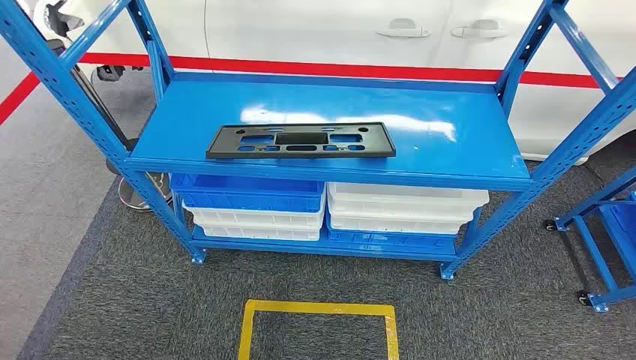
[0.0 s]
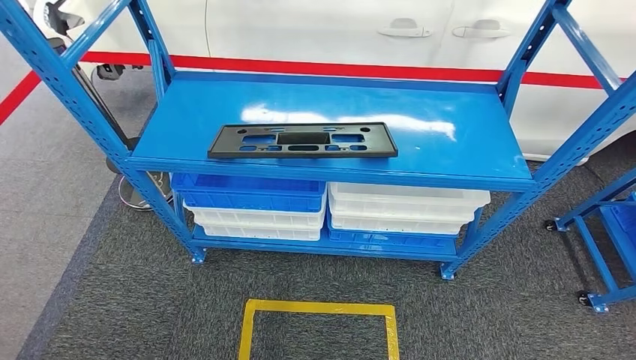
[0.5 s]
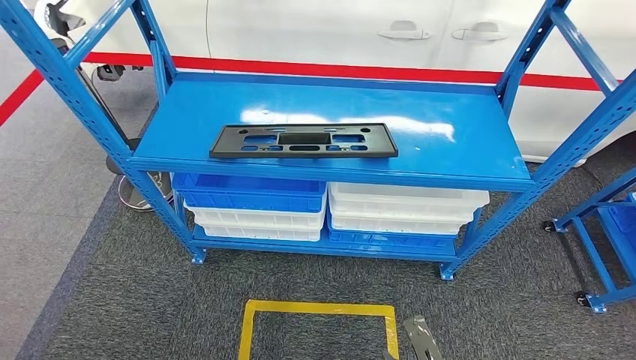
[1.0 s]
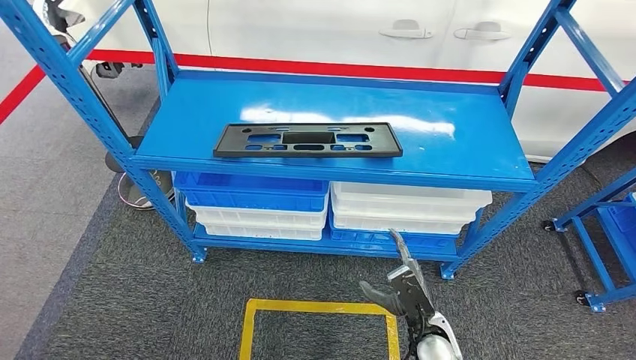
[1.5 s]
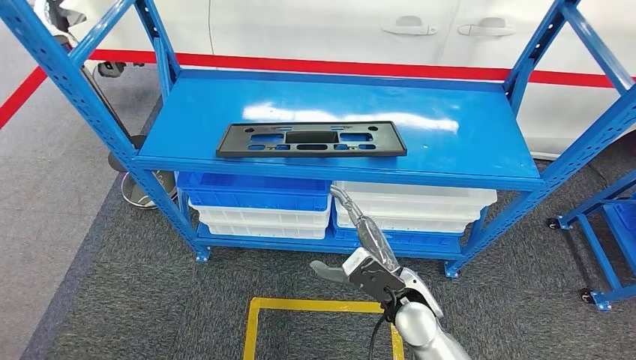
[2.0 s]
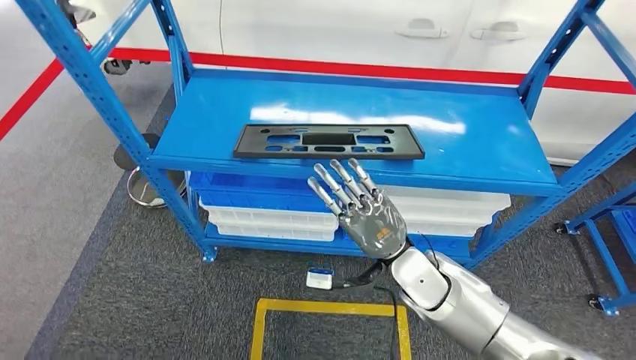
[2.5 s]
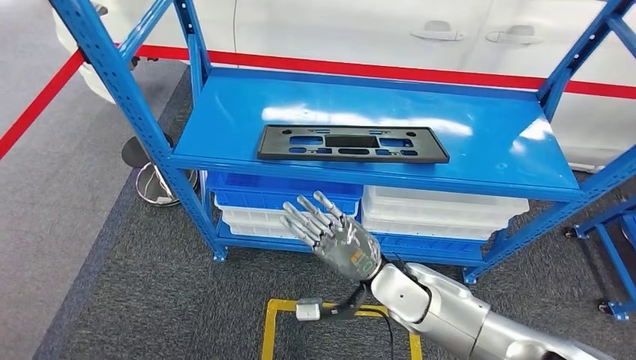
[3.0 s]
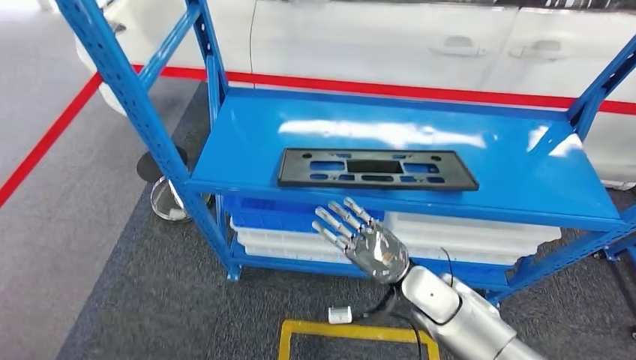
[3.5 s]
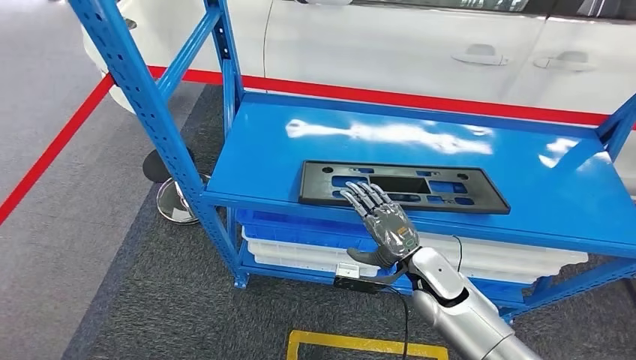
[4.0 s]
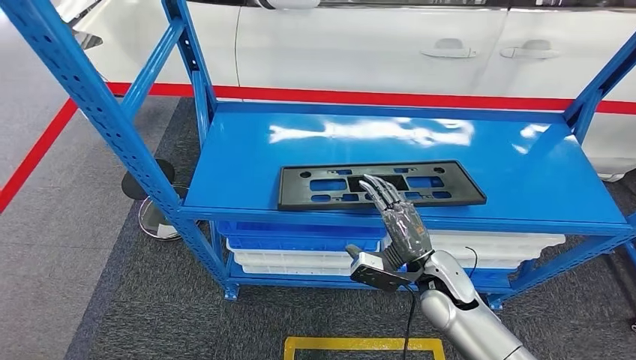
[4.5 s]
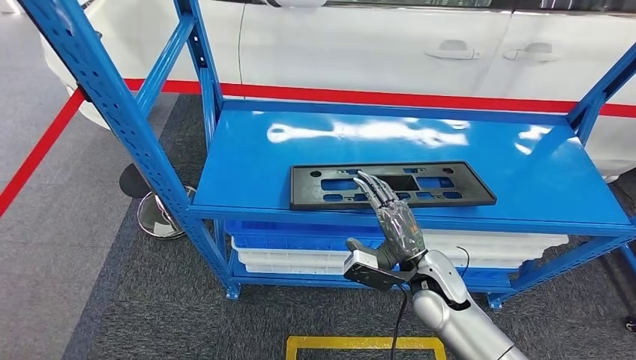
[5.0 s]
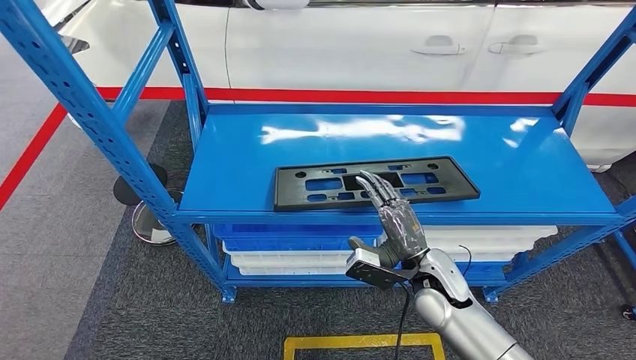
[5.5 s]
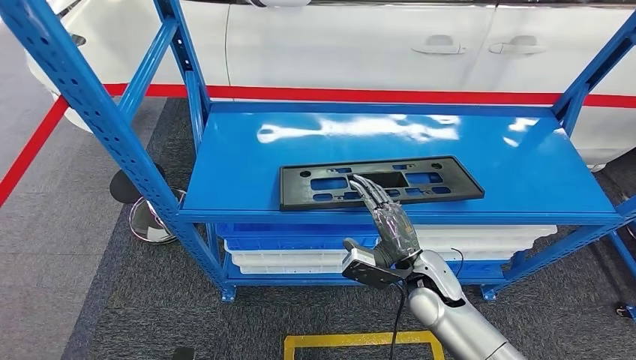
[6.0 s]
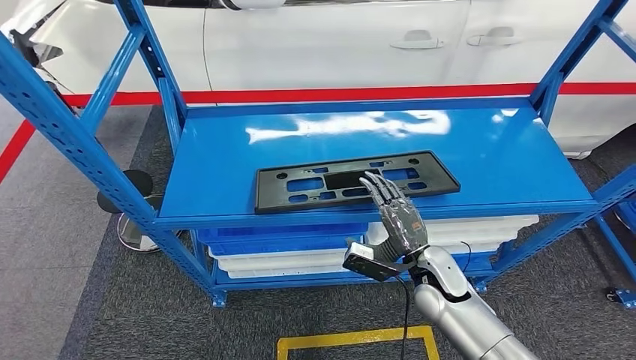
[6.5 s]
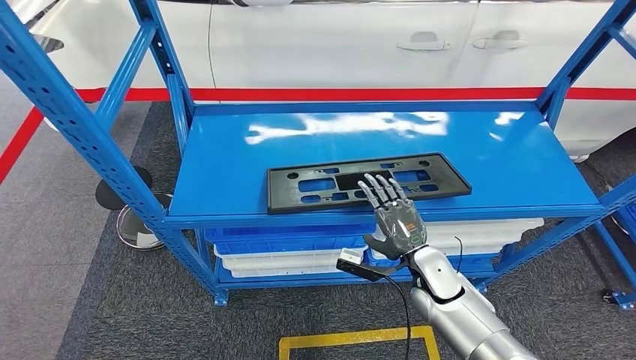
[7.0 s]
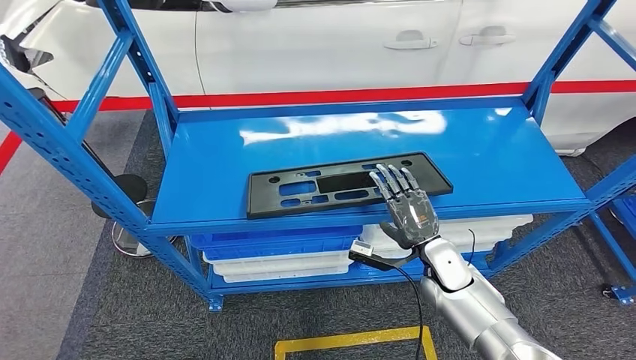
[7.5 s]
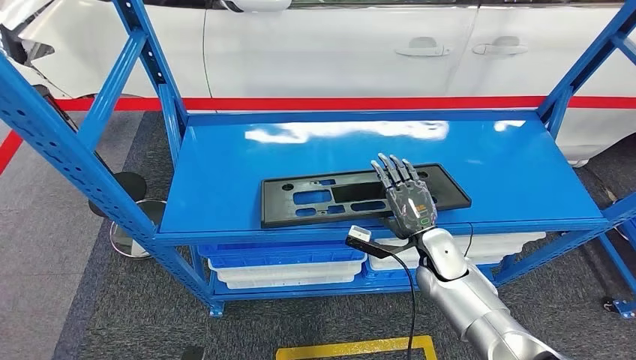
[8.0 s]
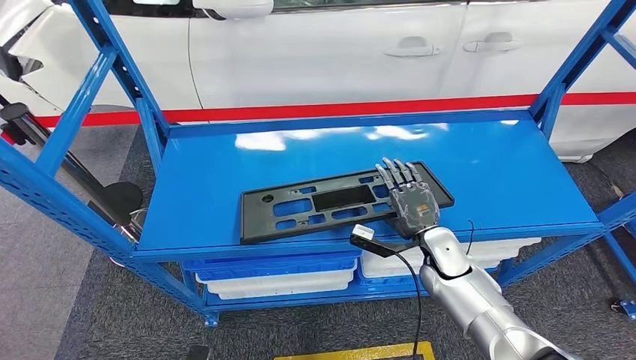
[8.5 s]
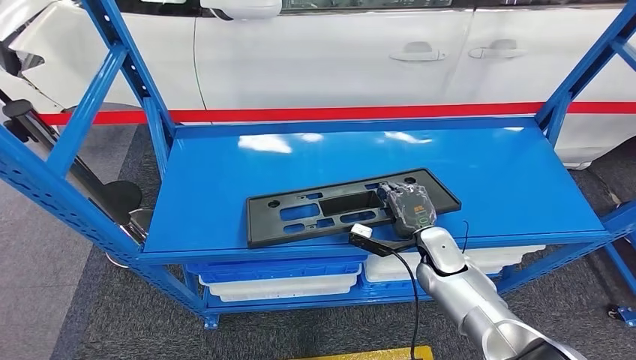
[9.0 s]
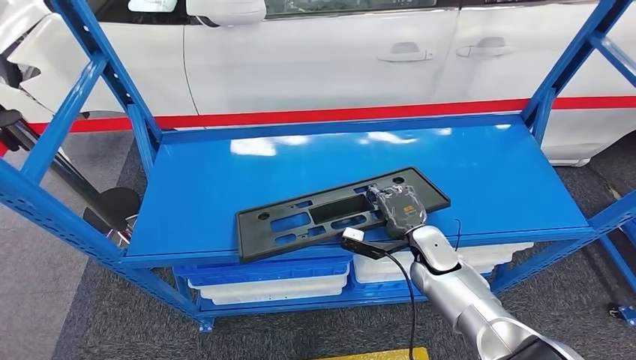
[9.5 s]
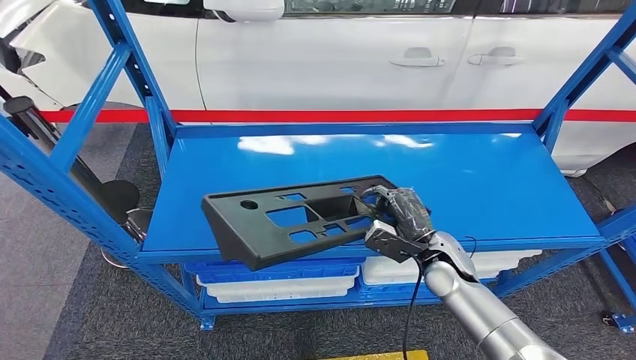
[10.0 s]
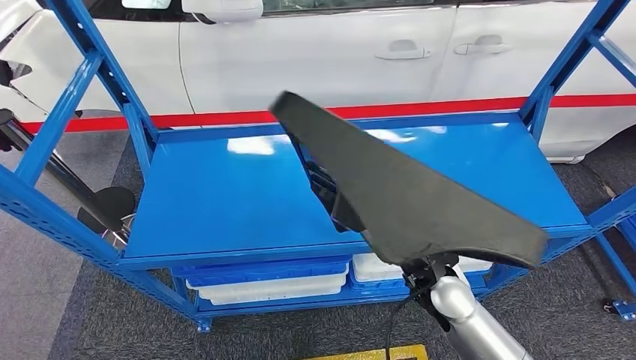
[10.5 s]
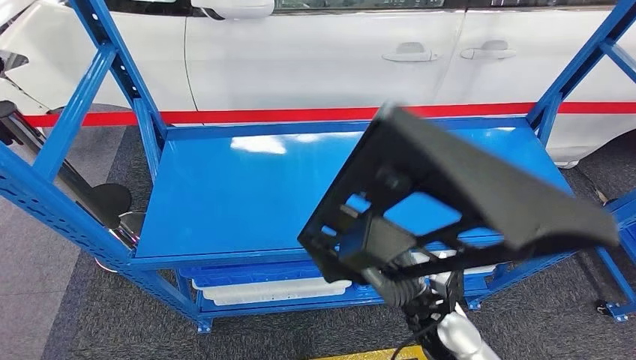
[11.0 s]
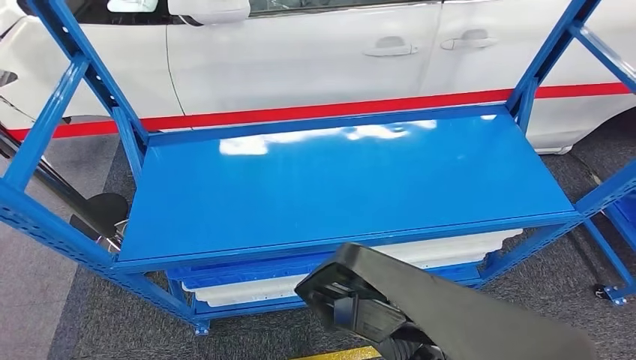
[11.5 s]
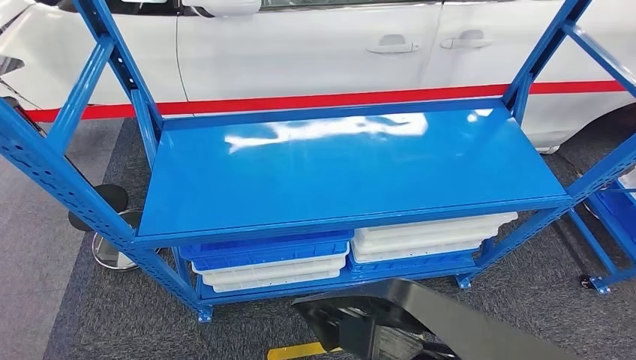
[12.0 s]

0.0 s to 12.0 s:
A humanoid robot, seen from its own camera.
Step, 0.0 to 10.0 s: Pick up the large material from the shelf.

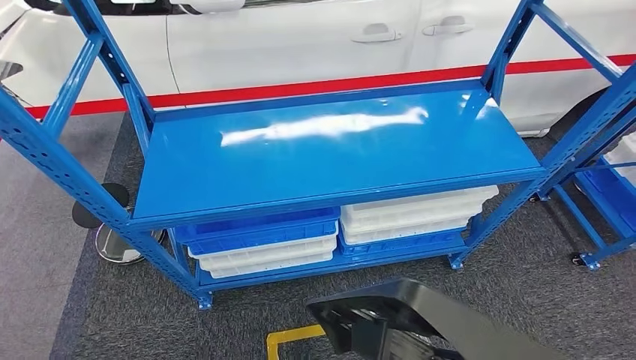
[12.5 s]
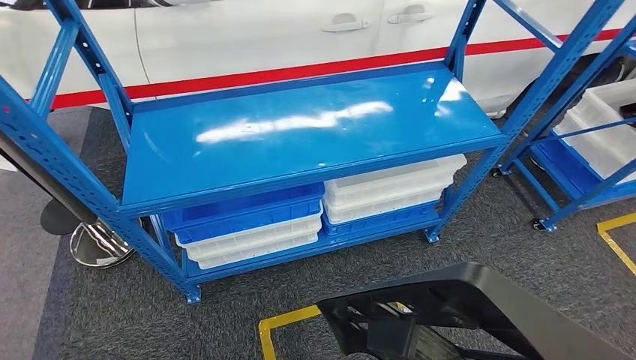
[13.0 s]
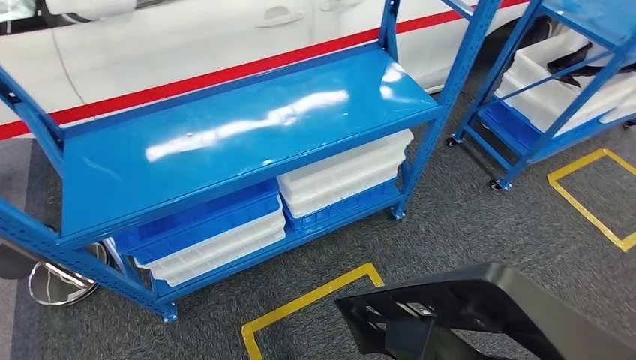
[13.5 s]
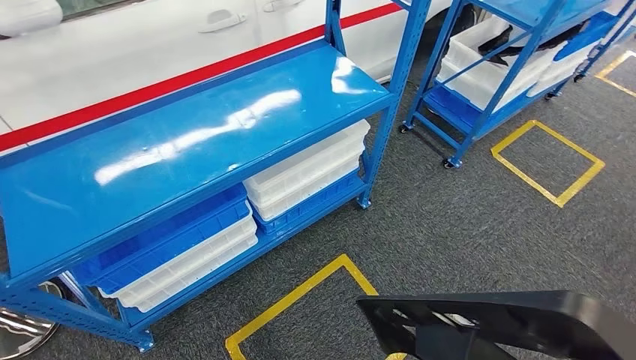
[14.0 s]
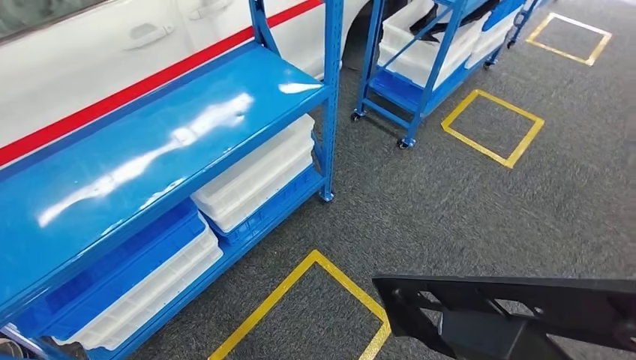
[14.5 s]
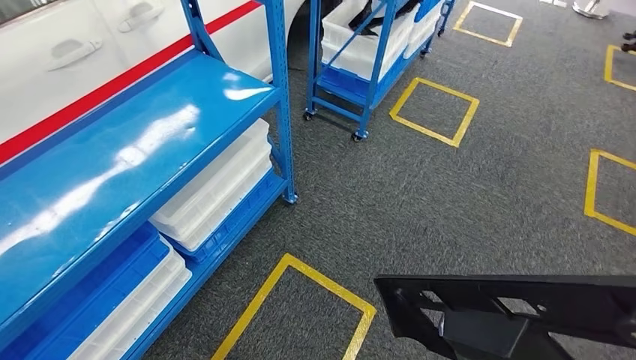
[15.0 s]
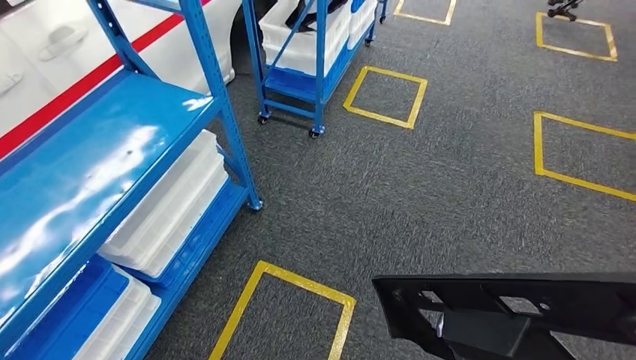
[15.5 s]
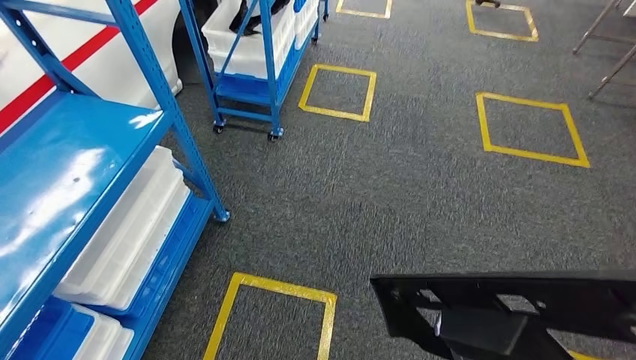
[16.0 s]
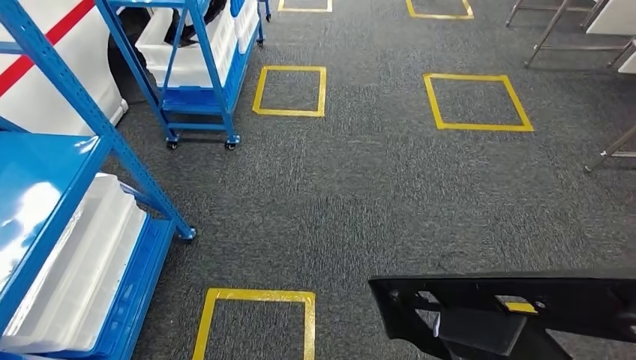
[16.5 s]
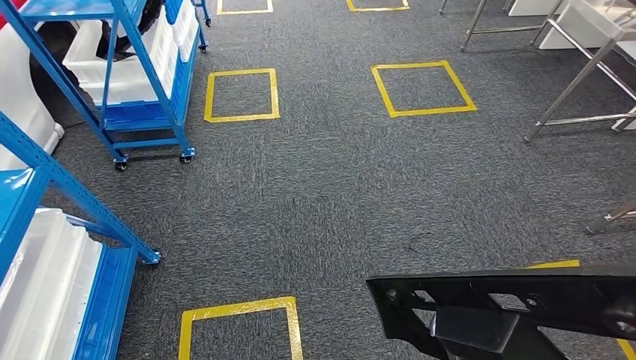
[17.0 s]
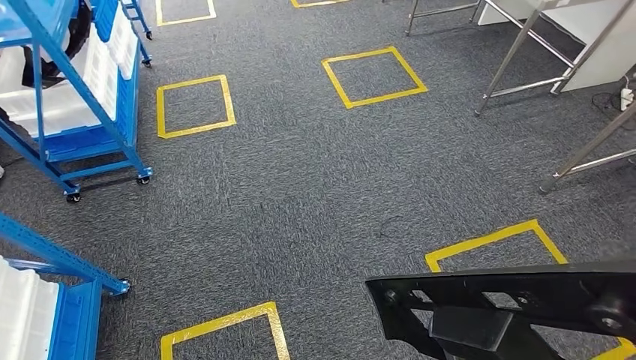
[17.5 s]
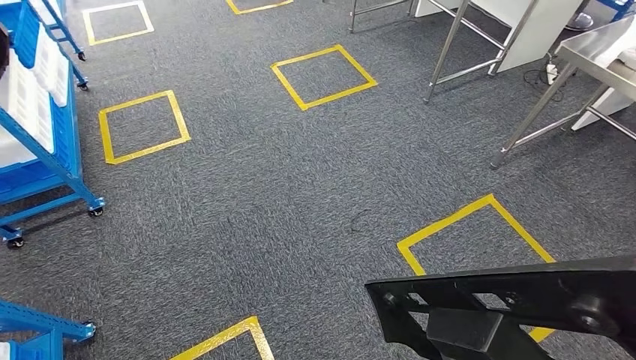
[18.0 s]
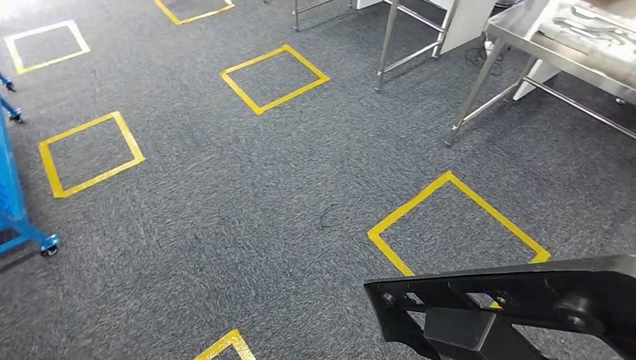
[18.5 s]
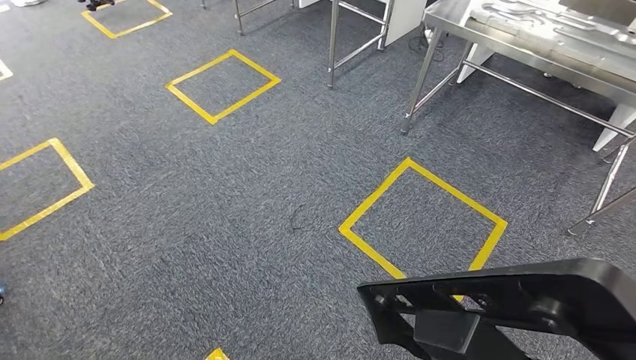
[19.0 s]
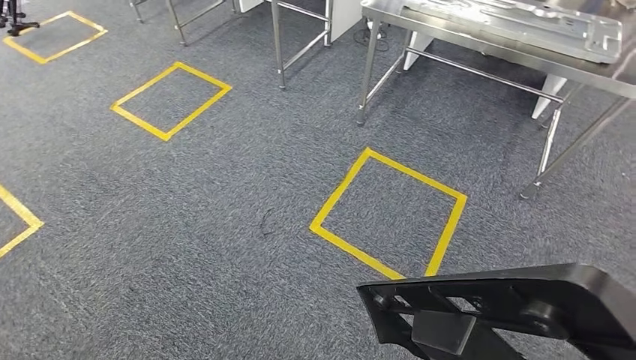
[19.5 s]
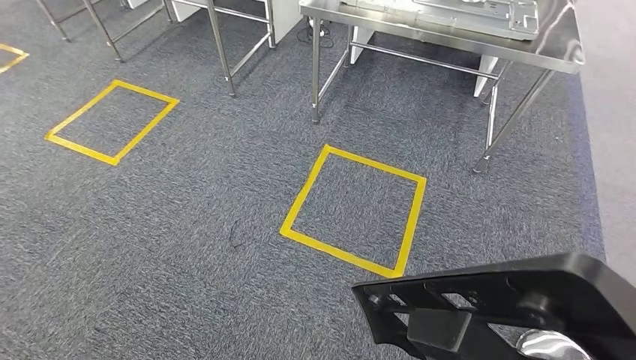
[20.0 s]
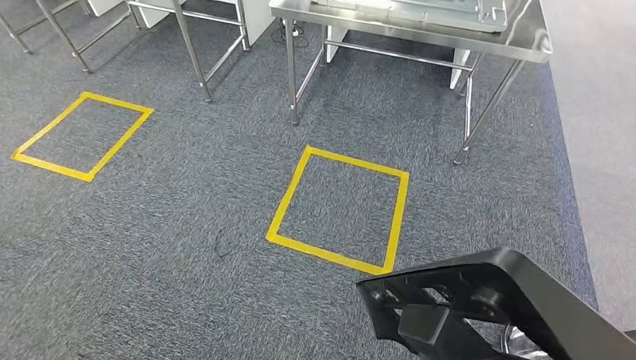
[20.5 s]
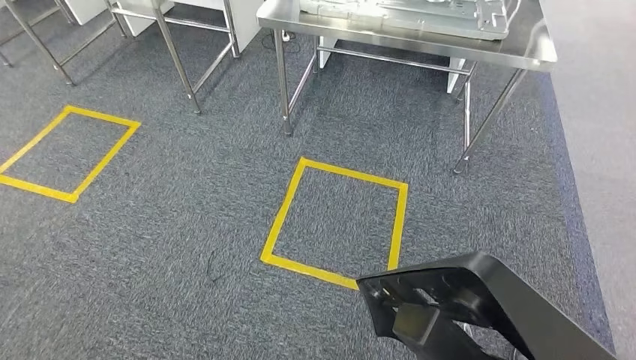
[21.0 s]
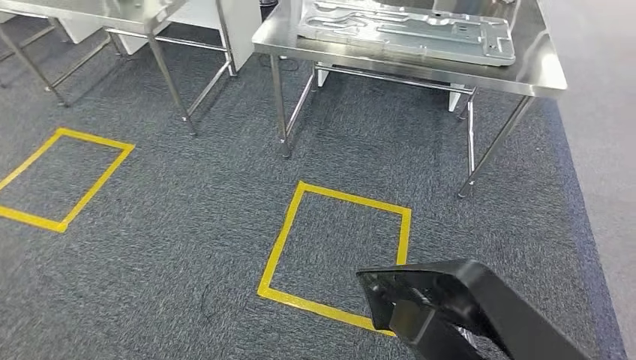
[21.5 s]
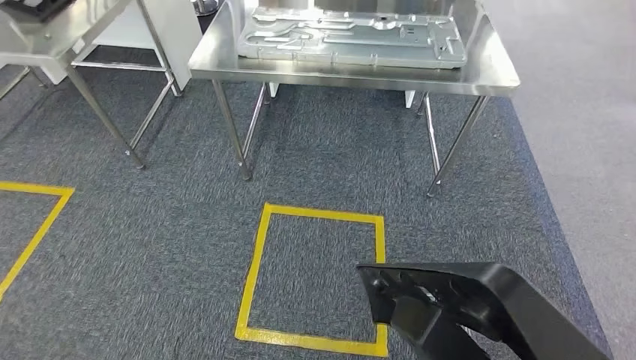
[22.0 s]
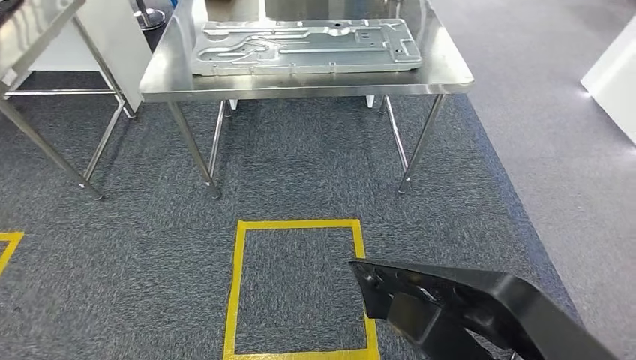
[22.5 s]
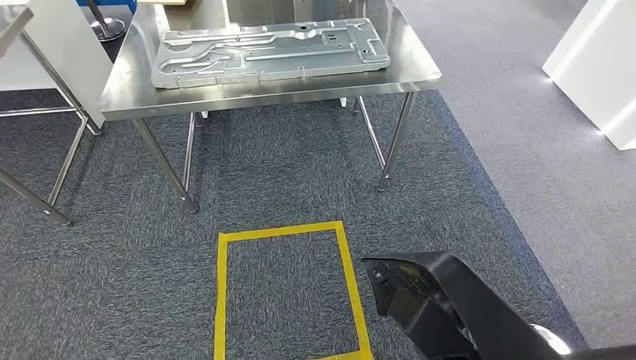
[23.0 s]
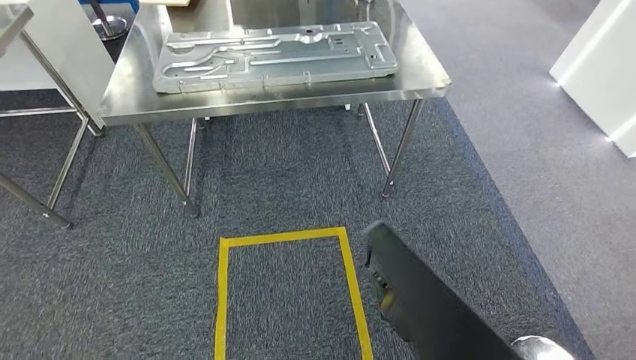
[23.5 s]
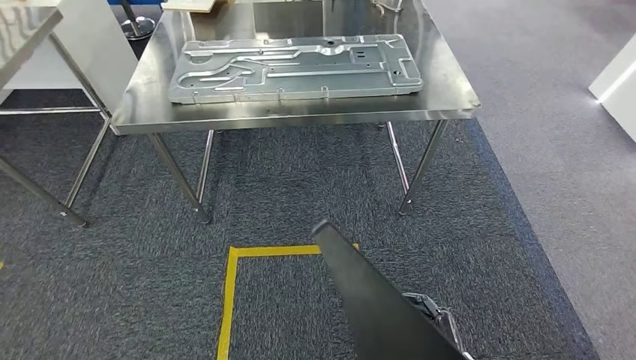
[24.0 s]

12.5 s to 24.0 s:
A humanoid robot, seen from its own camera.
Step, 13.0 to 22.0 s: Move the large material to the workbench.
